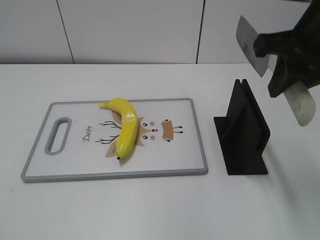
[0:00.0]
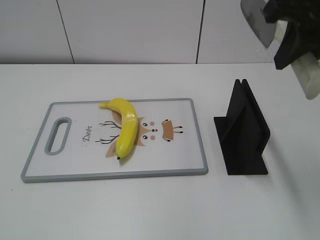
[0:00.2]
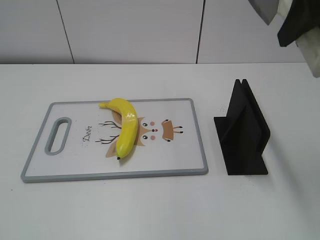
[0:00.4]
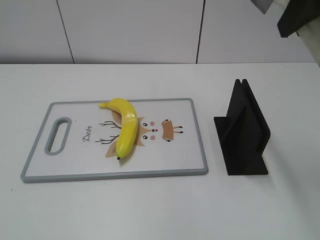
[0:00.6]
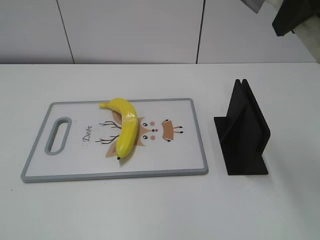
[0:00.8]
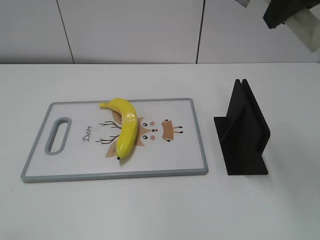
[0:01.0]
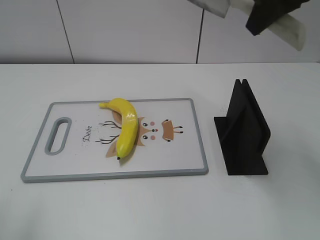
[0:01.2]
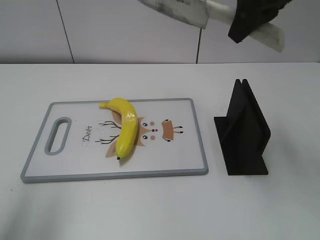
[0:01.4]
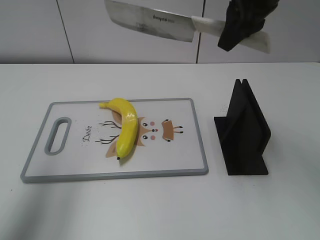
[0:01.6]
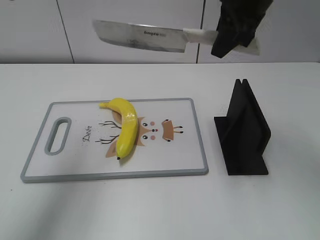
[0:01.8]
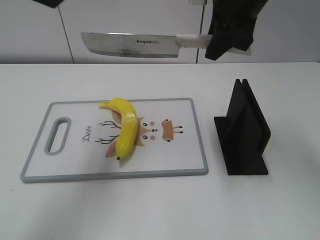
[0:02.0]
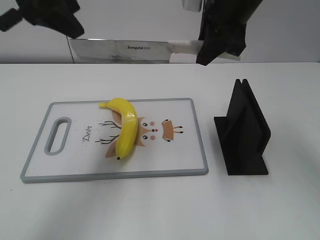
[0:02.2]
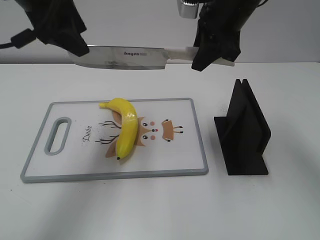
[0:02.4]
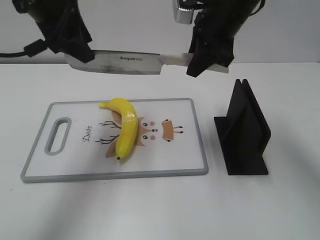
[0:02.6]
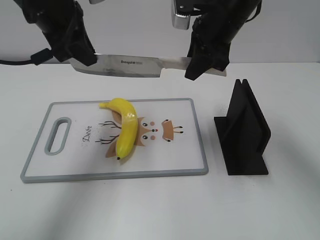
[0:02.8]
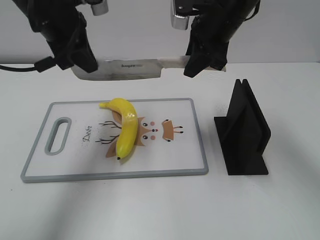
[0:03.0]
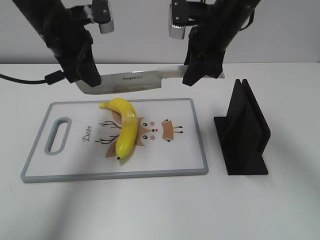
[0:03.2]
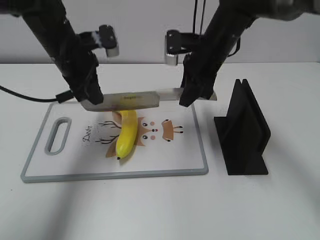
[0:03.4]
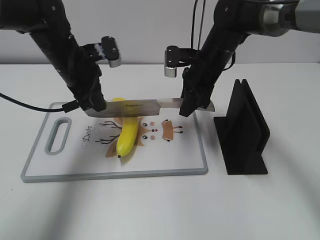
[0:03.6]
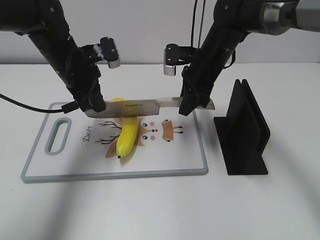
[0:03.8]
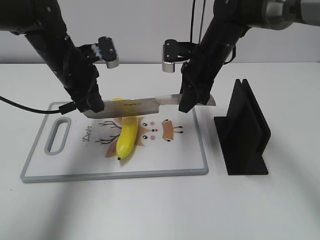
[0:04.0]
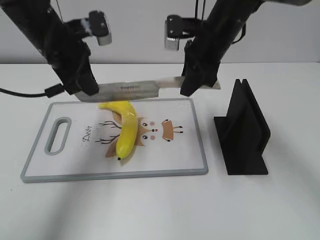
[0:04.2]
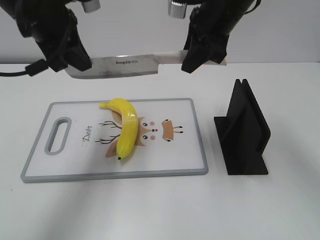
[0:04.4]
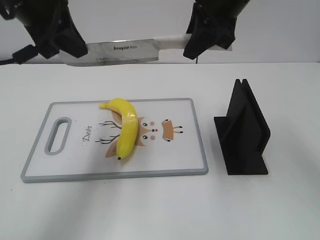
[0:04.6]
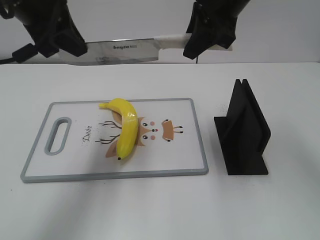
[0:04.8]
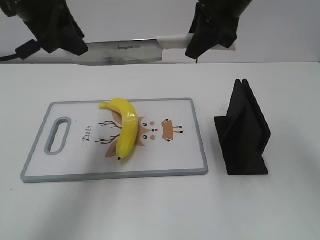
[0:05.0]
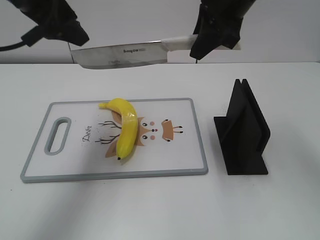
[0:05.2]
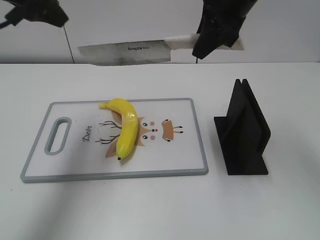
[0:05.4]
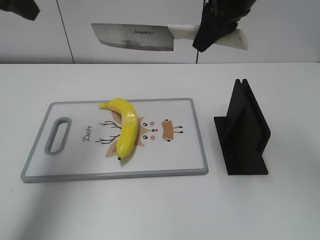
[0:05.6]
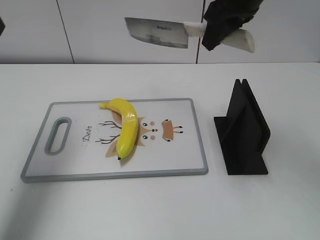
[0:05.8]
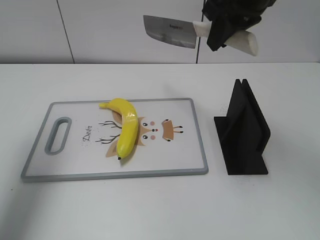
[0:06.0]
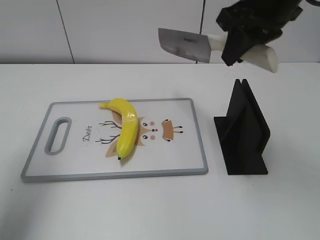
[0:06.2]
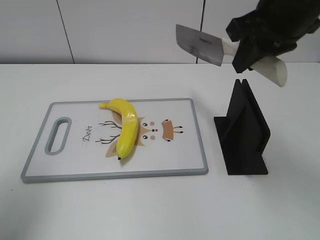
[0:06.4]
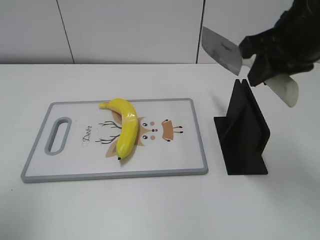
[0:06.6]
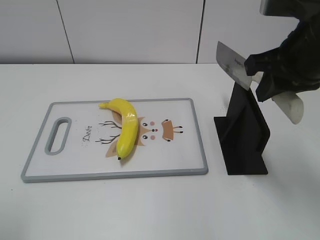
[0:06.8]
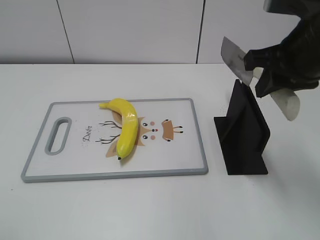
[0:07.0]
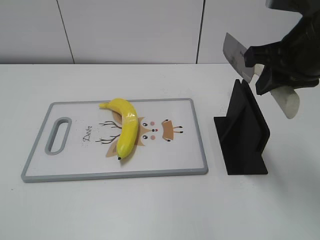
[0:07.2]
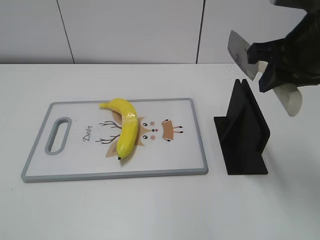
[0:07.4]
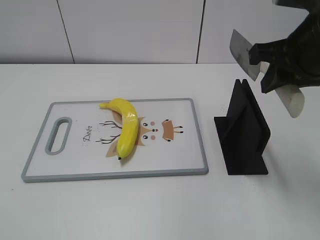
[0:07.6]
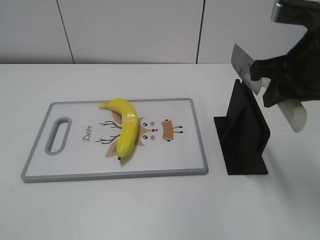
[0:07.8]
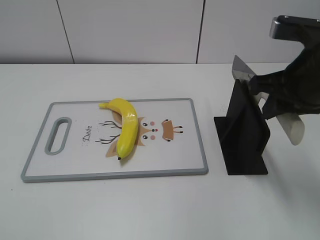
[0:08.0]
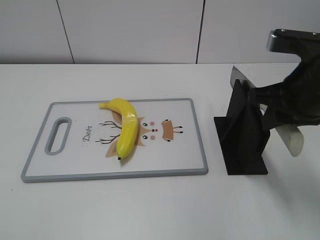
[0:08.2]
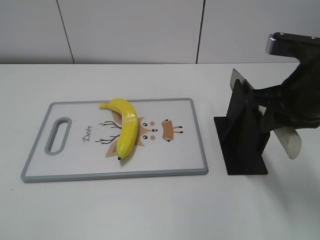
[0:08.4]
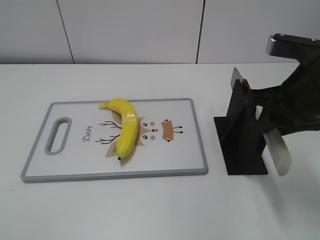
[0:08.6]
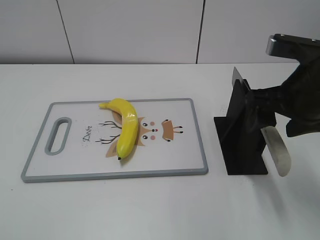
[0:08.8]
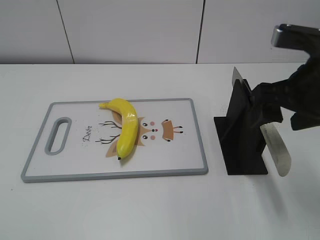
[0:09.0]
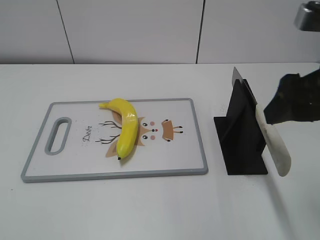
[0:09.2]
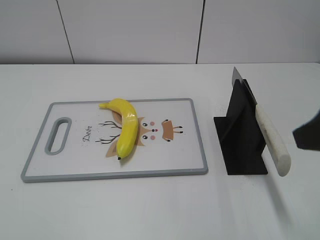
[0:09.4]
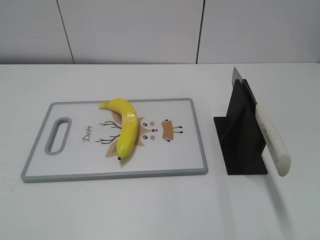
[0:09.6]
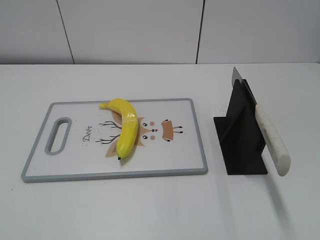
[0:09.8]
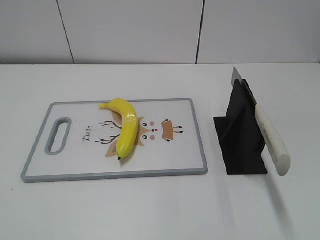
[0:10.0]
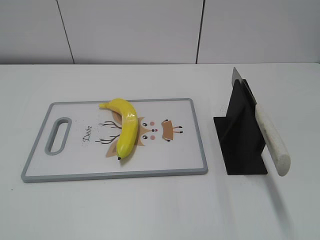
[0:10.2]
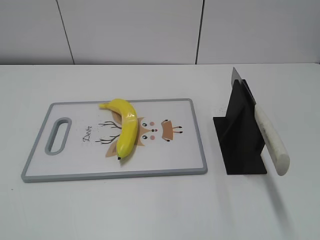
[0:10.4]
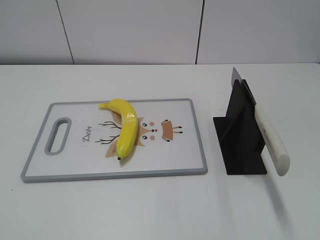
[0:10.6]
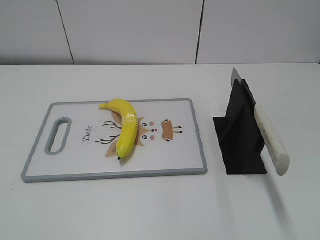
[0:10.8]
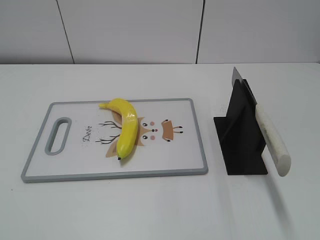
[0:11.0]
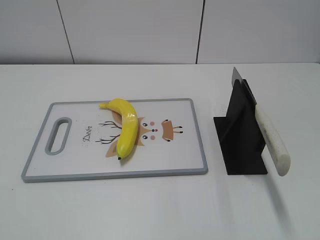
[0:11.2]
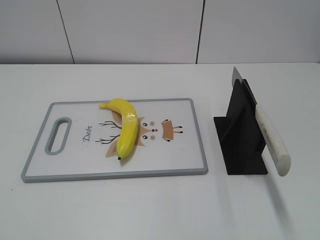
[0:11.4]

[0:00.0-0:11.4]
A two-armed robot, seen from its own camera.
Task of the whole recording: cut plastic banana.
Step, 0:00.2 to 0:05.0: Lift the knife with your right hand.
Step, 0:05.4 to 0:06.4: Cut the banana with your right hand.
Step, 0:06.6 to 0:07.8: Lift the knife with your right hand.
Step, 0:08.0 to 0:11.4: Place the knife on the storage rack with your right hand.
0:00.0 to 0:01.4: The left gripper travels forward and upward by some 20 cm; the right gripper travels forward by some 10 cm.
0:01.4 to 0:02.8: The left gripper goes approximately 25 cm forward, to the right and downward, and closes. Meanwhile the right gripper goes some 10 cm downward and forward.
0:02.8 to 0:04.2: Both grippers travel together downward, roughly 5 cm.
0:04.2 to 0:05.6: The left gripper moves upward and to the left, approximately 15 cm, and opens its fingers; the right gripper moves upward, approximately 10 cm.
0:05.6 to 0:07.2: The right gripper shifts roughly 15 cm backward and to the right. The left gripper goes approximately 30 cm backward.
0:07.2 to 0:08.6: The right gripper changes place by roughly 5 cm.
0:08.6 to 0:10.0: The right gripper moves backward and to the right, approximately 25 cm, and opens up.
